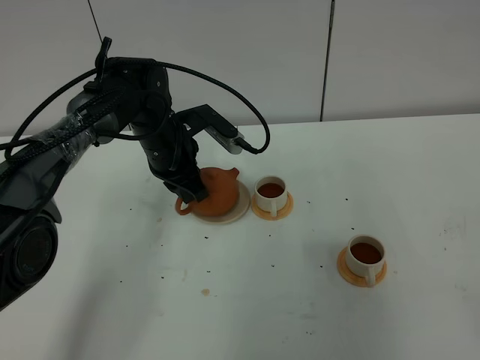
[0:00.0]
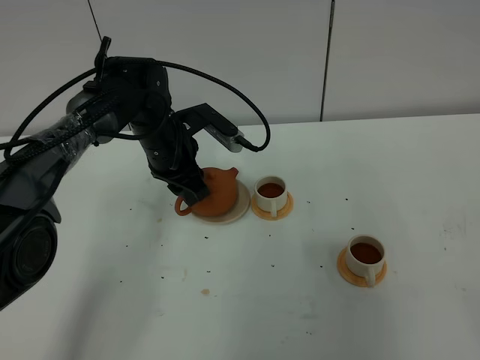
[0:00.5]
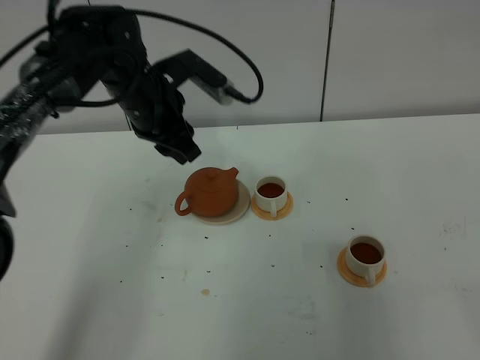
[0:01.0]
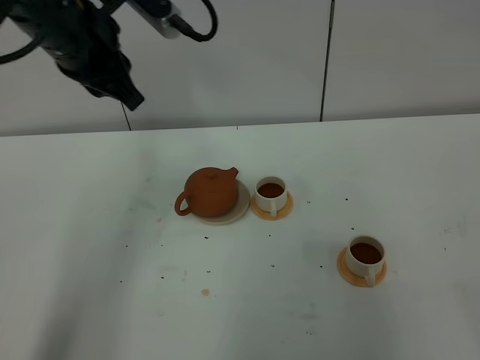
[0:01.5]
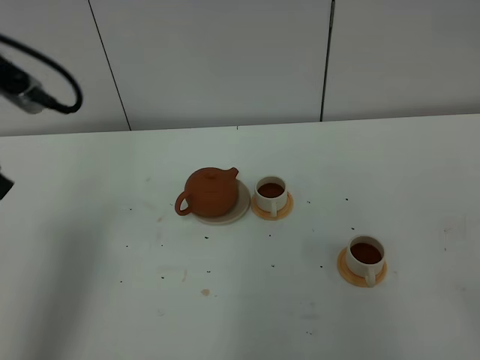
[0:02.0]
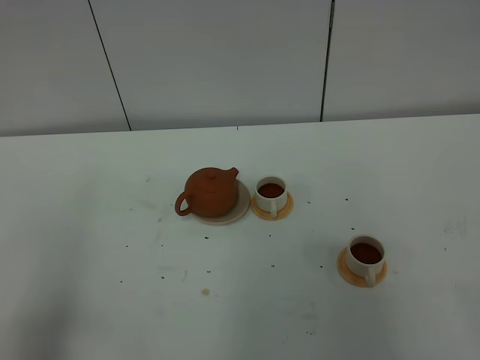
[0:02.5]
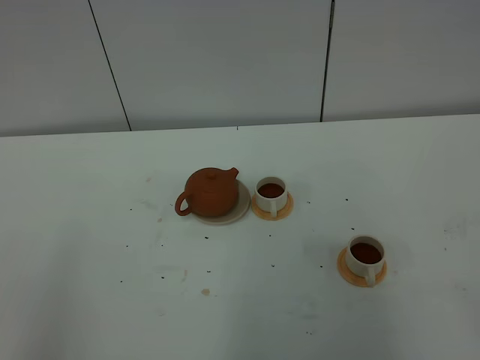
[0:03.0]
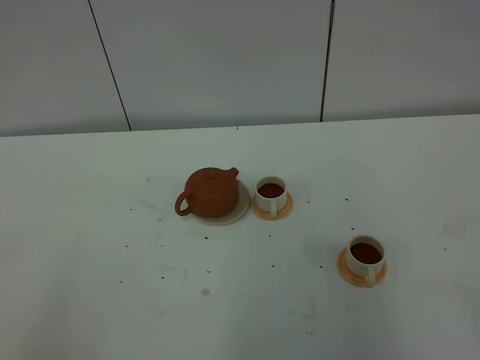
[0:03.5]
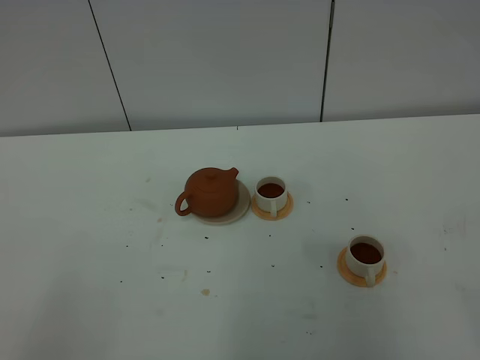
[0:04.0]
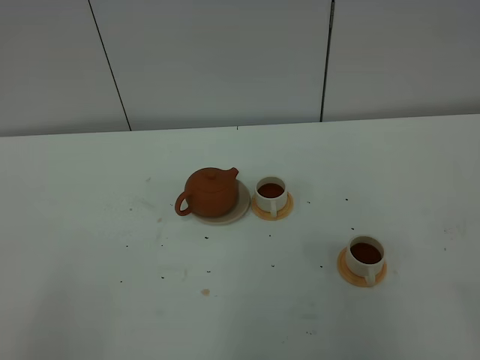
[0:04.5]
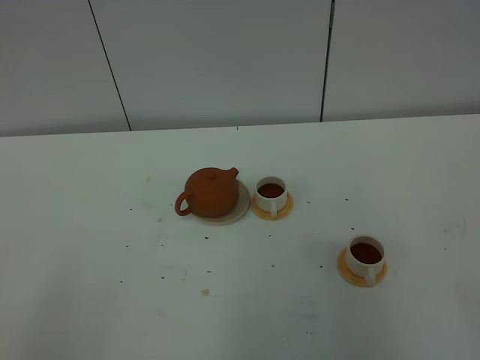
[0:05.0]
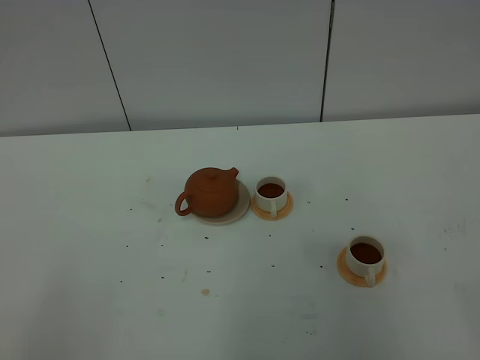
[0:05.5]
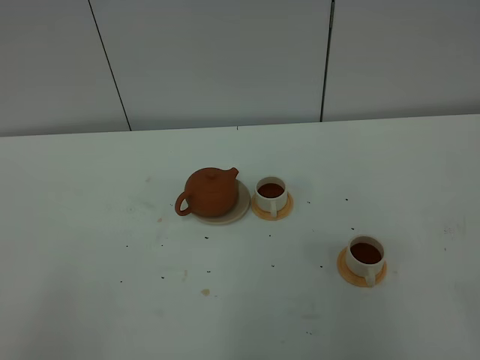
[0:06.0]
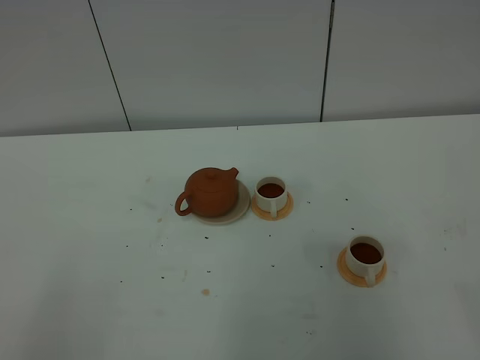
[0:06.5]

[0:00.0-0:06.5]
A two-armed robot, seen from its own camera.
Task of the whole recording: grasp the brown teapot and pour the tea into the two white teacups one by one, put the brown teapot back in its original place.
0:00.0 to 0:02.0: The left gripper is displaced backward, upward and to the left by some 30 cm, and opens and closes again.
0:02.0 to 0:04.5: The left gripper travels backward by about 30 cm.
0:04.5 to 0:06.5: Both grippers stay about where they are.

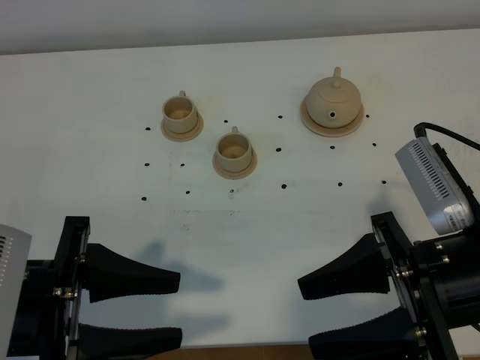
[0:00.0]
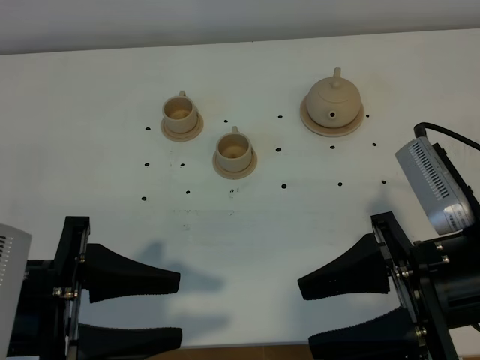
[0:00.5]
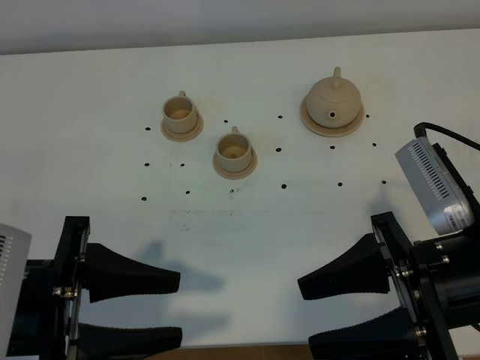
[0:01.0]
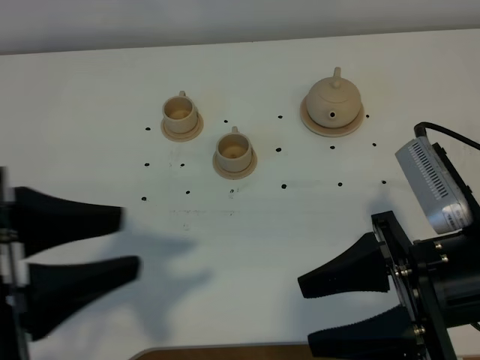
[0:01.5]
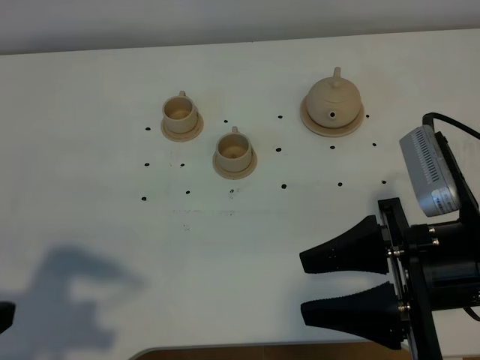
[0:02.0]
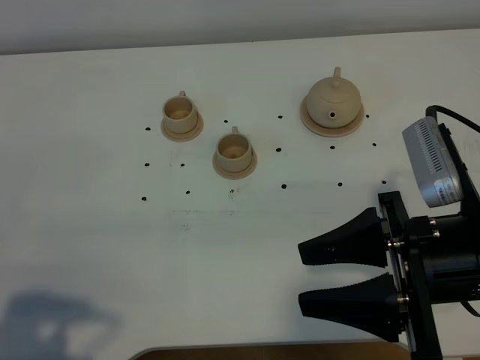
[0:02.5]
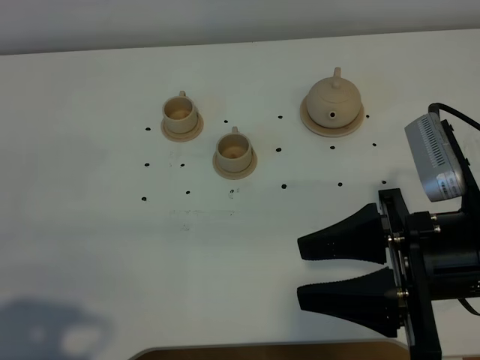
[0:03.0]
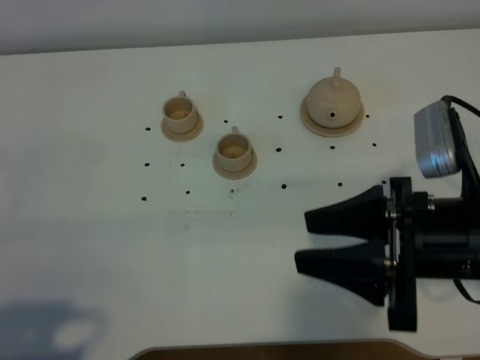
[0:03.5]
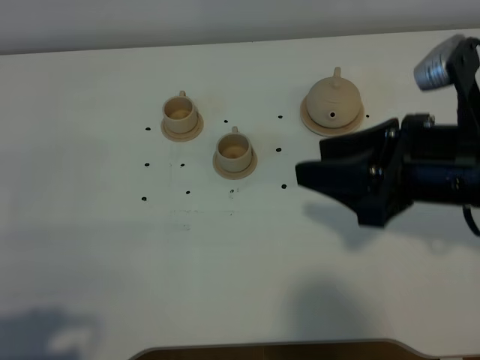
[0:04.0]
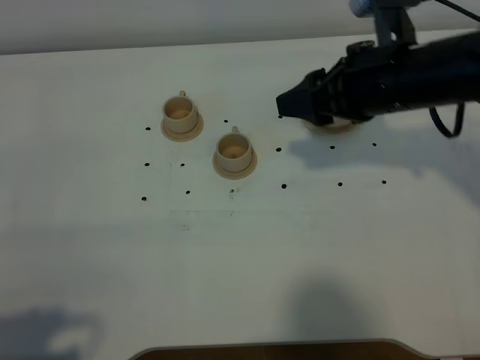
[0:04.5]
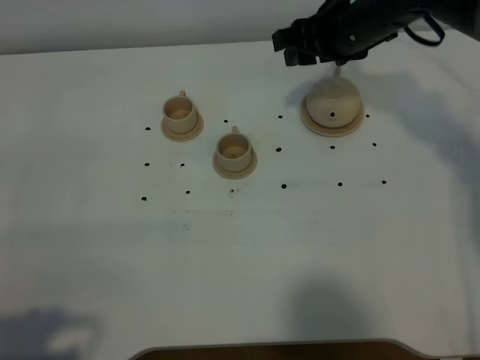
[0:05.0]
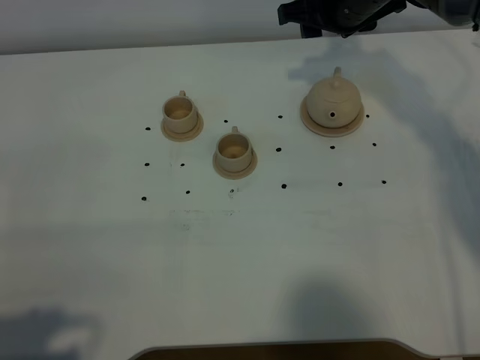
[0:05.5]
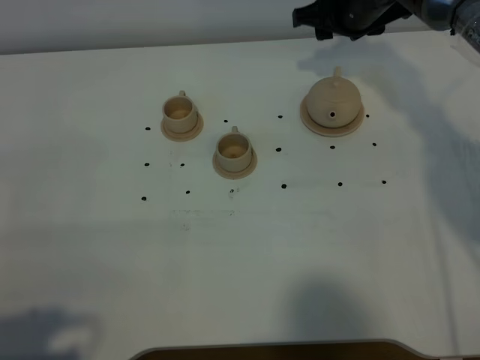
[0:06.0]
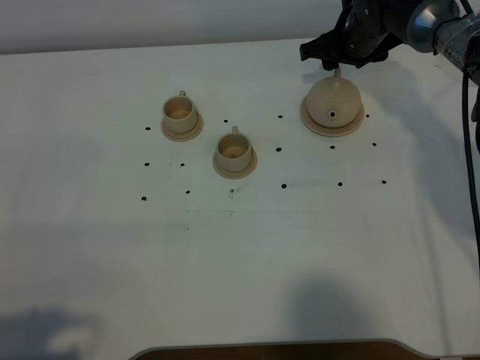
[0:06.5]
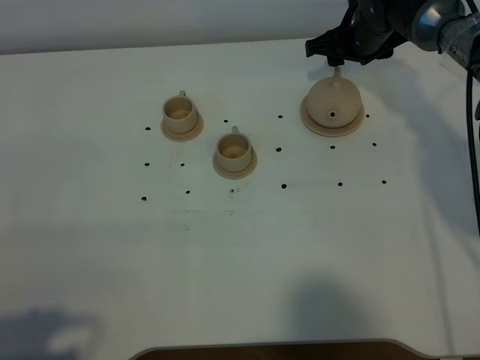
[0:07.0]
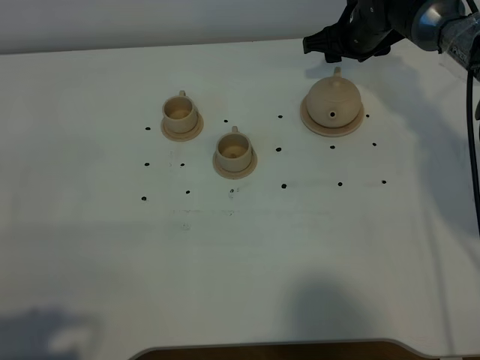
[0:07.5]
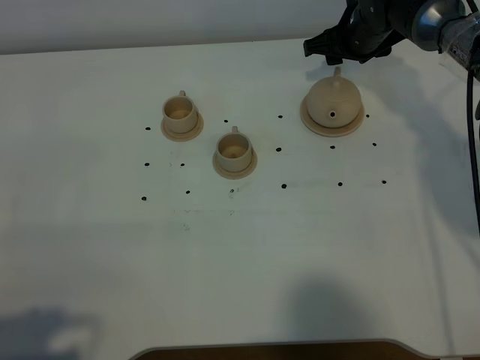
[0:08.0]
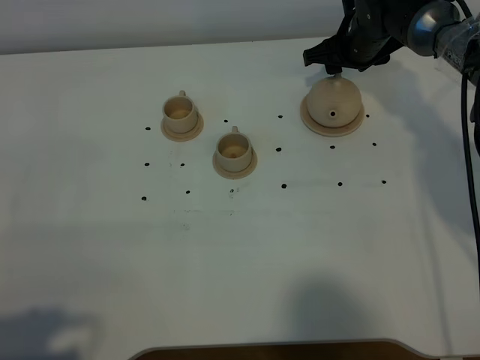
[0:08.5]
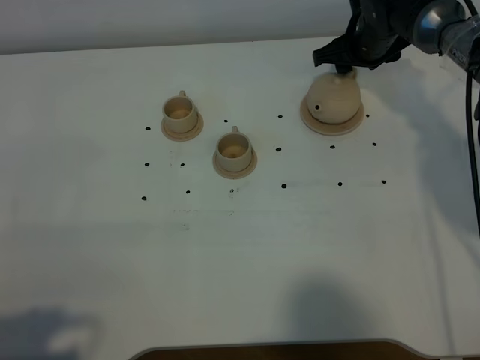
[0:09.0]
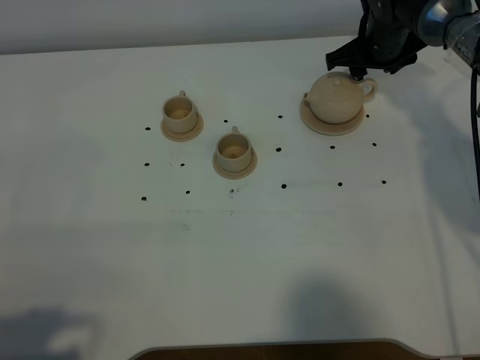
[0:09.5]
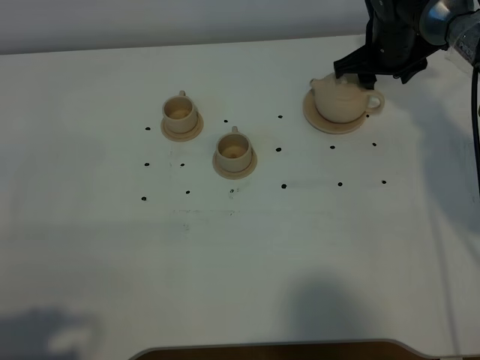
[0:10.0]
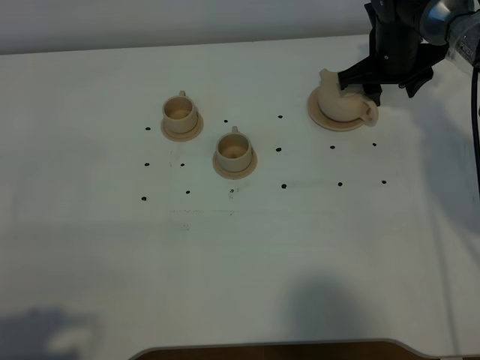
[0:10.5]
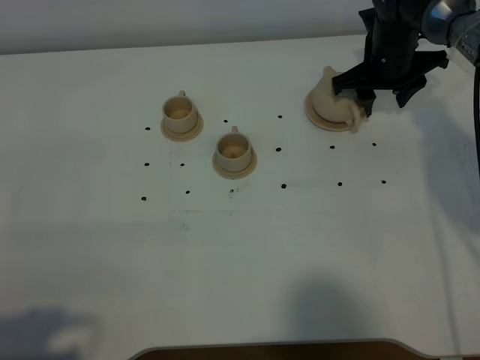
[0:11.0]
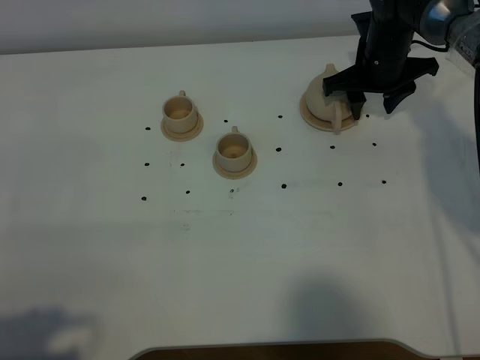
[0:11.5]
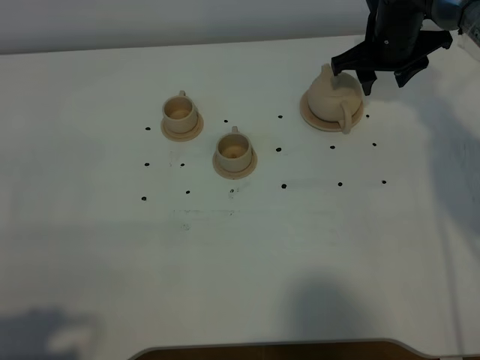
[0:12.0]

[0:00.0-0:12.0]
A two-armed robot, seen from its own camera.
Task of the whole recording: grasp the brown teapot and pour the tea into the two brown teacups one by one, put the brown teapot back in its original place.
0:00.0 to 0:02.0: The left gripper heads to the left, covering some 5 cm.
0:02.0 to 0:04.0: The left gripper travels backward by some 5 cm, while the right gripper shifts about 5 cm forward.
0:04.0 to 0:06.0: The right gripper is displaced forward by about 30 cm.
0:06.0 to 0:08.0: The right gripper shifts by about 5 cm.
0:10.0 to 0:12.0: The grippers make only small movements.

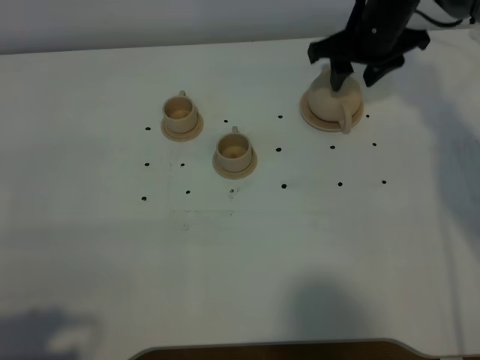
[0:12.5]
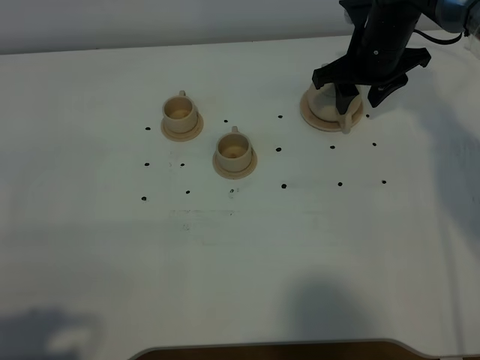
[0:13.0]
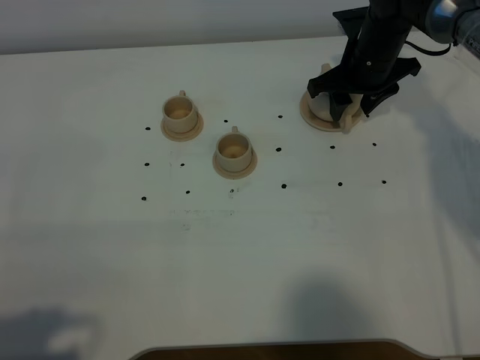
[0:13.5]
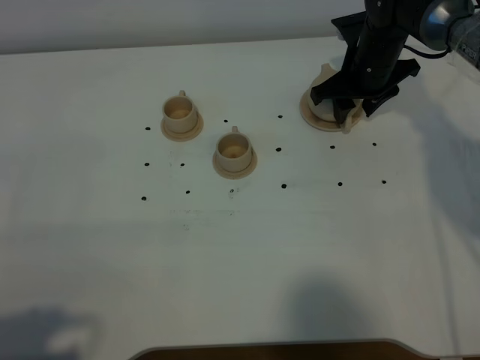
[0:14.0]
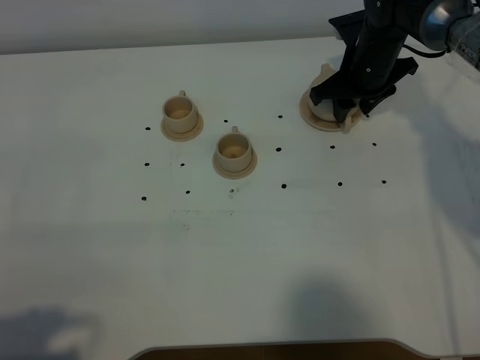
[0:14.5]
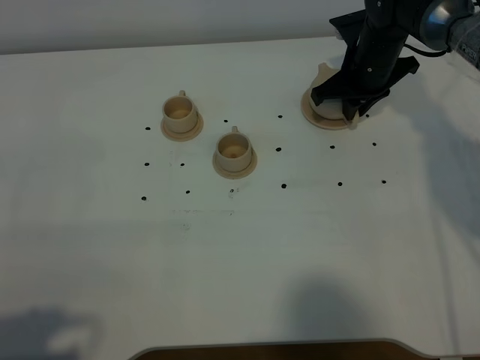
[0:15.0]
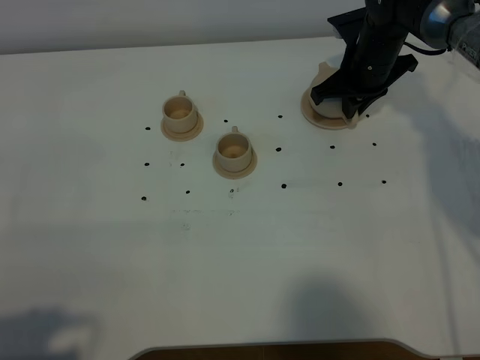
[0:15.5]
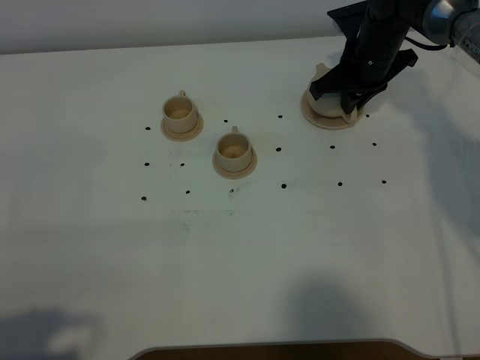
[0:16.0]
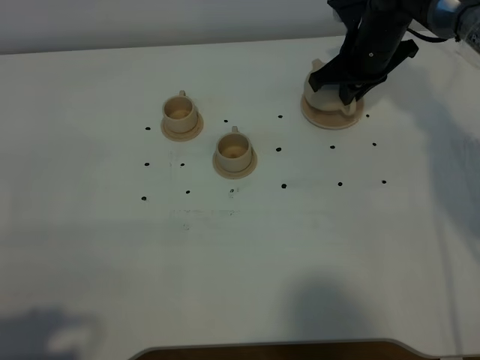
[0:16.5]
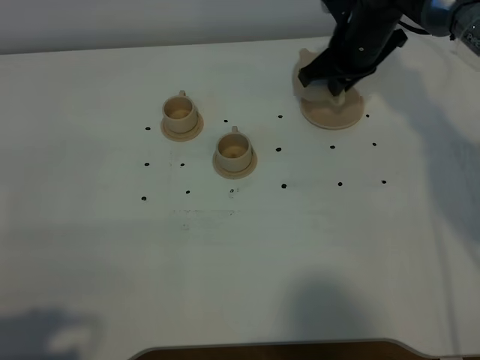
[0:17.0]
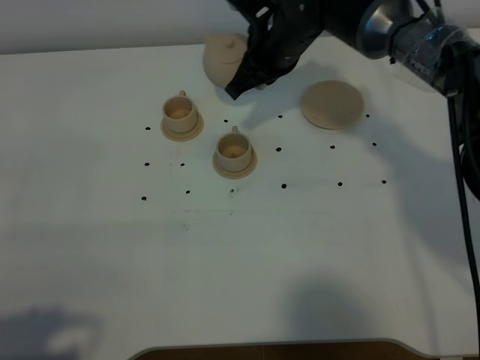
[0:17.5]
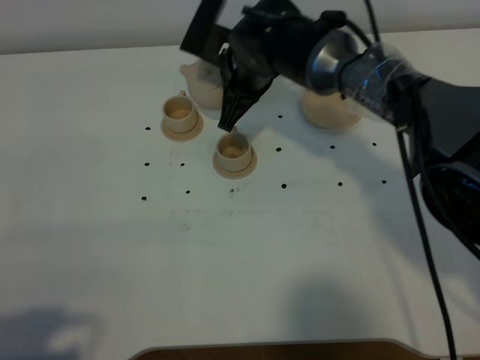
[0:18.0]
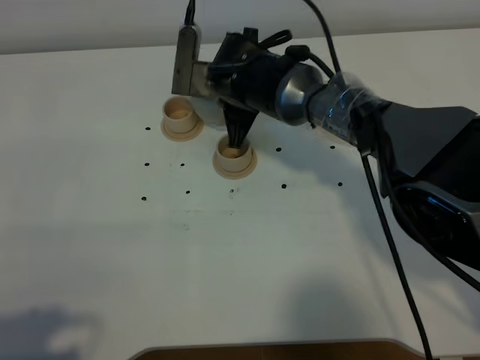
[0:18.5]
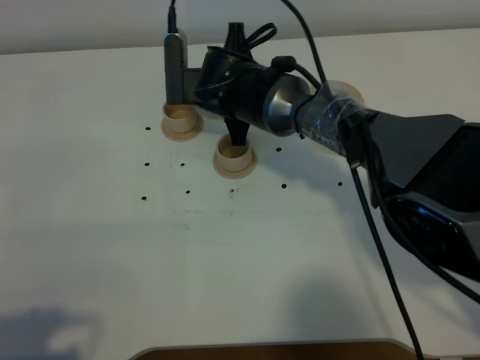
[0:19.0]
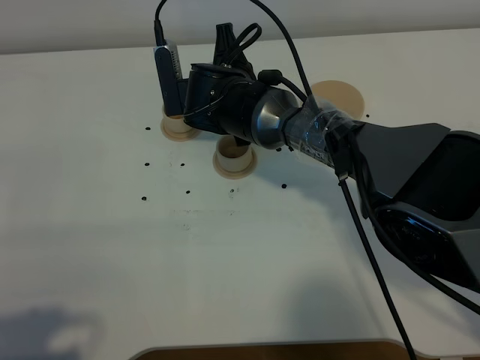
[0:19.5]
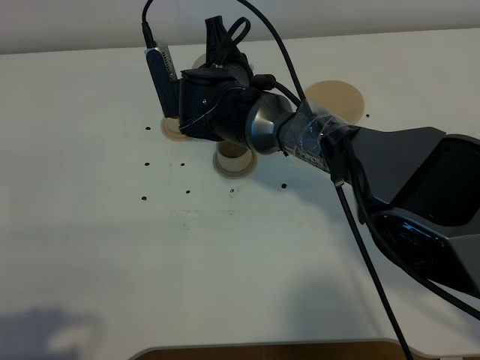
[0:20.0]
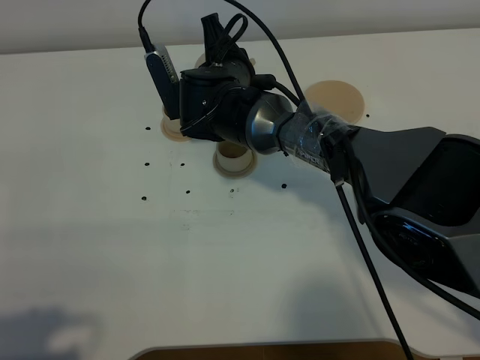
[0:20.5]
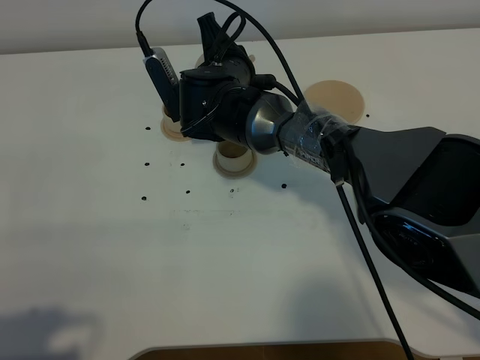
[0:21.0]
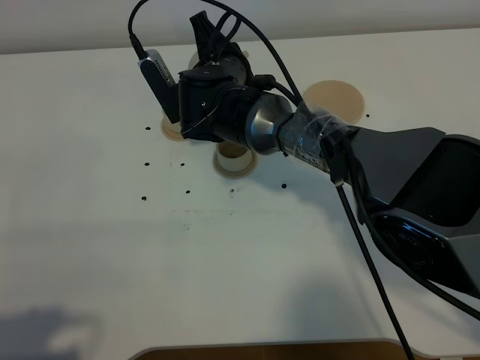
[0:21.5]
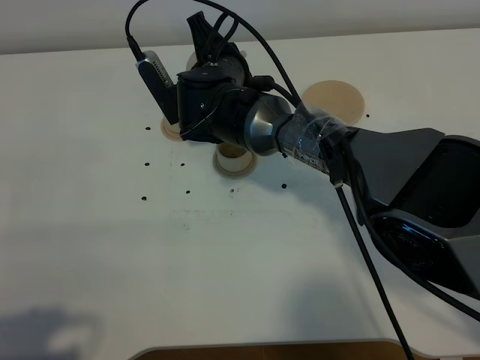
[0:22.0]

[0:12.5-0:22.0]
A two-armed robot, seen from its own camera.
Task of the whole recording: grasp the brown teapot and pour the tea into the two brown teacups one by one, put the brown teapot back in its original place.
Step, 0:12.5 to 0:16.5: Pick up the teapot with the right gripper.
0:12.5 to 0:14.5: The right gripper heads downward, covering approximately 5 cm.
0:14.5 to 0:16.5: The right gripper closes up.
0:16.5 to 0:18.0: The right gripper shifts roughly 15 cm to the left.
0:20.0 to 0:22.0: The grippers stay close to where they were, moving slightly.
